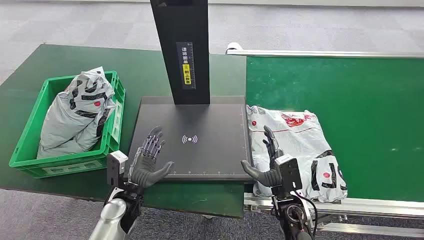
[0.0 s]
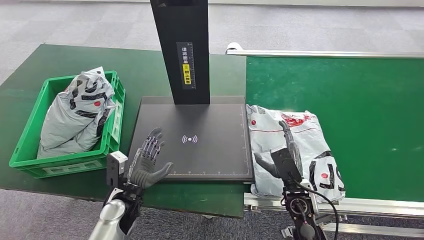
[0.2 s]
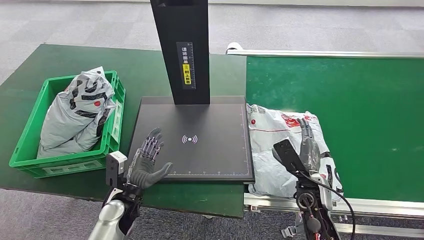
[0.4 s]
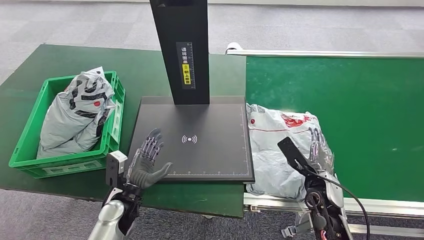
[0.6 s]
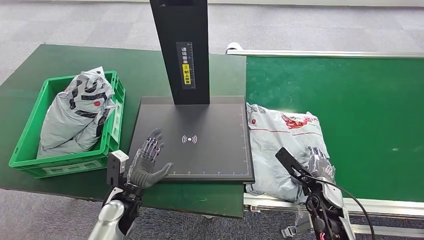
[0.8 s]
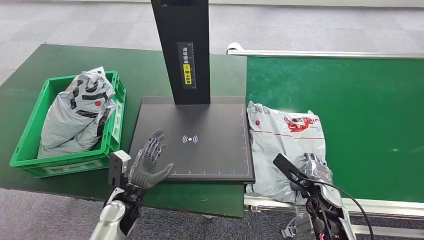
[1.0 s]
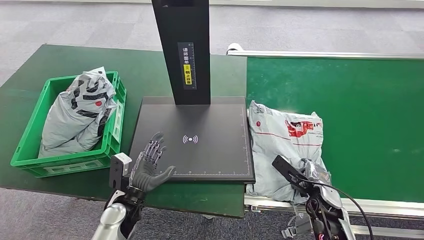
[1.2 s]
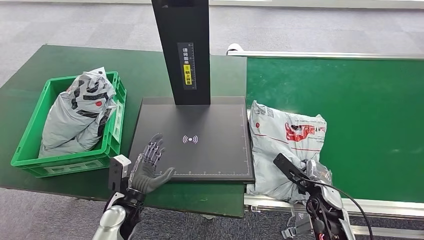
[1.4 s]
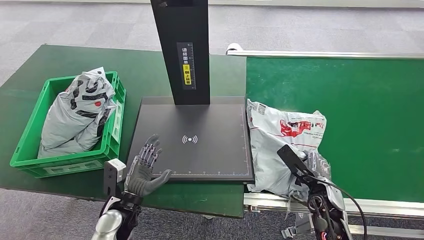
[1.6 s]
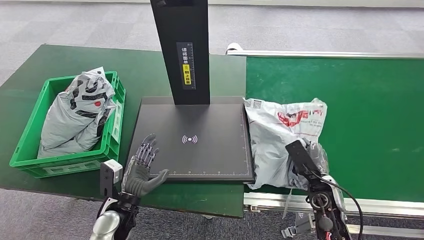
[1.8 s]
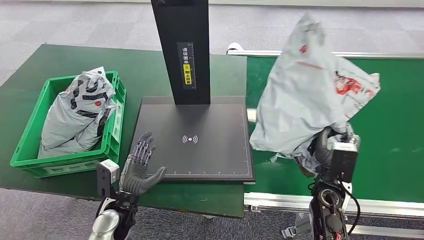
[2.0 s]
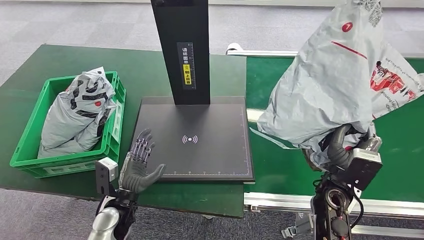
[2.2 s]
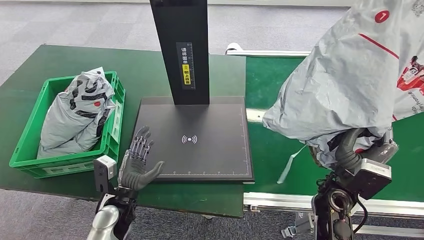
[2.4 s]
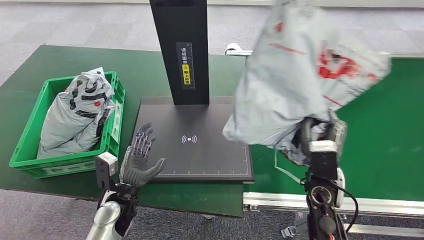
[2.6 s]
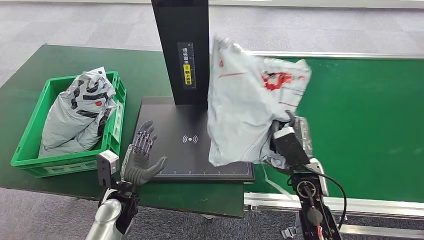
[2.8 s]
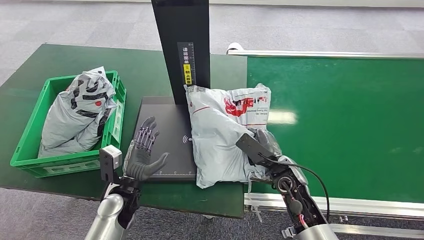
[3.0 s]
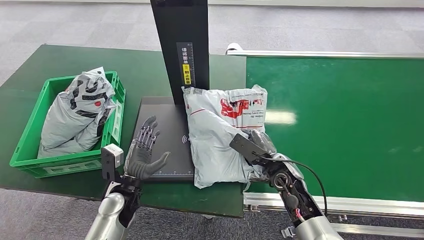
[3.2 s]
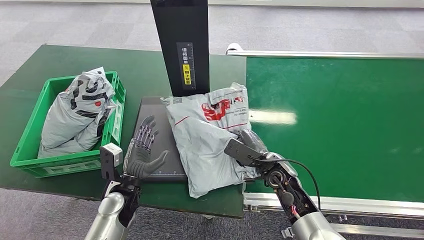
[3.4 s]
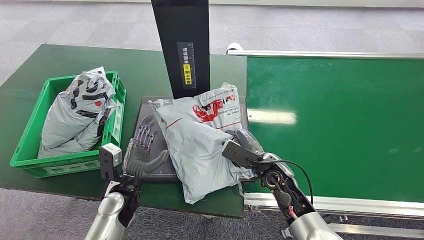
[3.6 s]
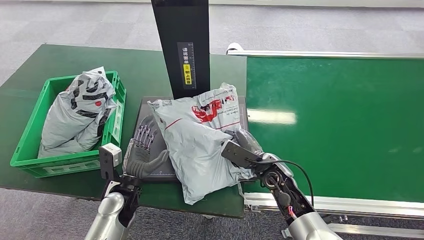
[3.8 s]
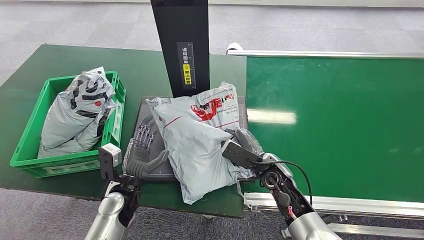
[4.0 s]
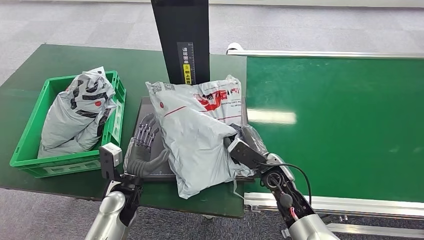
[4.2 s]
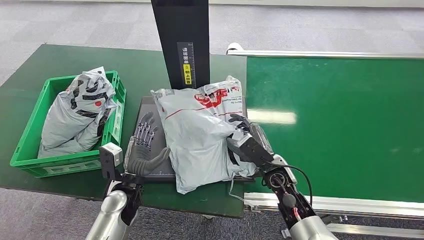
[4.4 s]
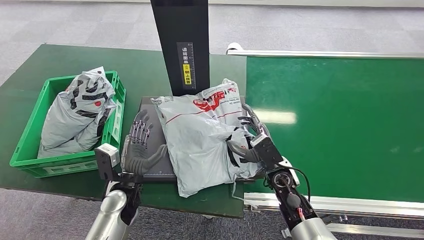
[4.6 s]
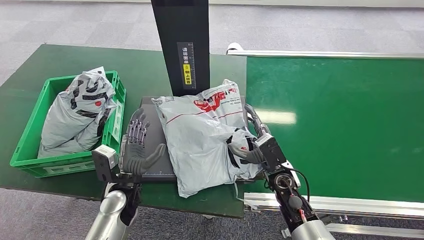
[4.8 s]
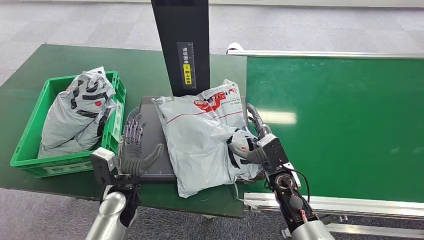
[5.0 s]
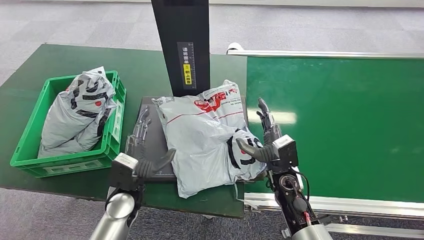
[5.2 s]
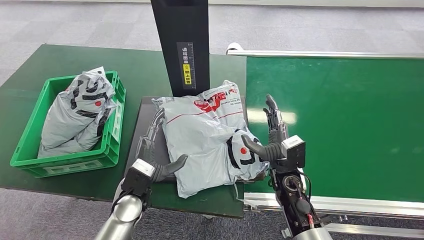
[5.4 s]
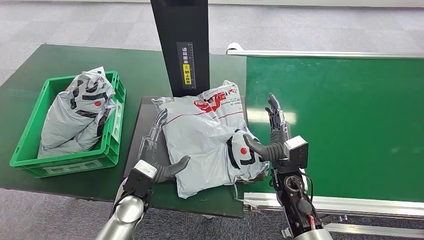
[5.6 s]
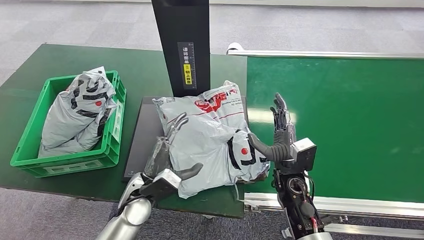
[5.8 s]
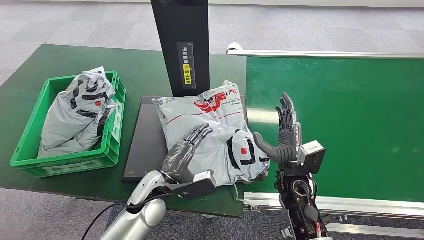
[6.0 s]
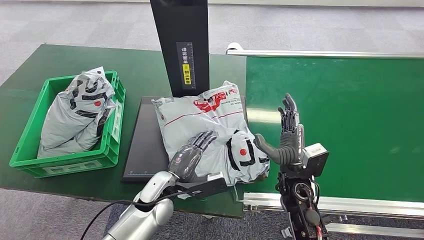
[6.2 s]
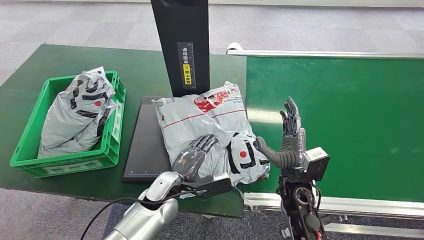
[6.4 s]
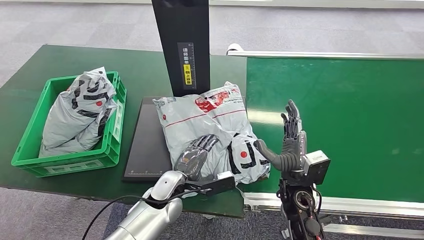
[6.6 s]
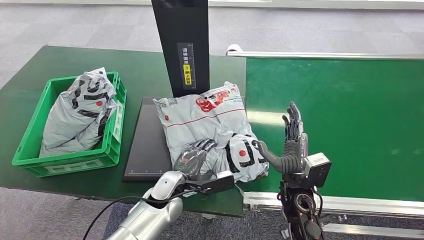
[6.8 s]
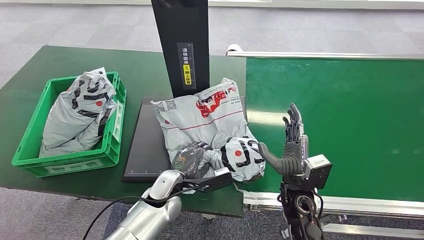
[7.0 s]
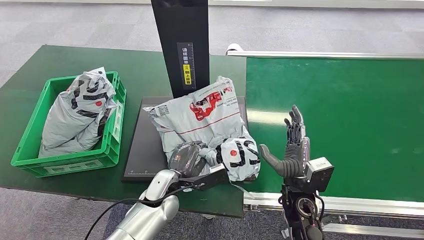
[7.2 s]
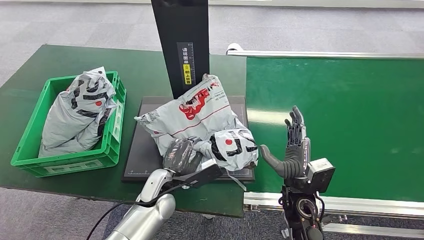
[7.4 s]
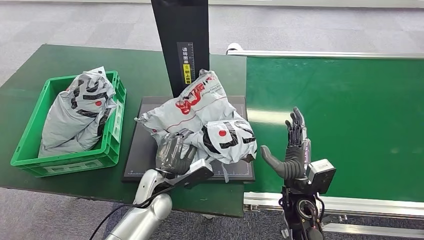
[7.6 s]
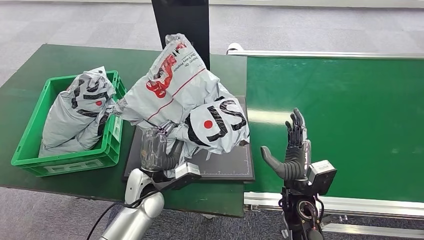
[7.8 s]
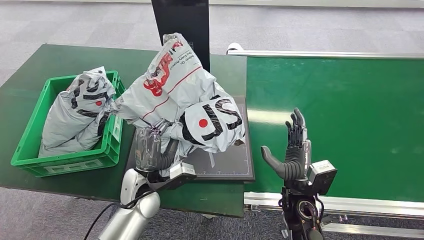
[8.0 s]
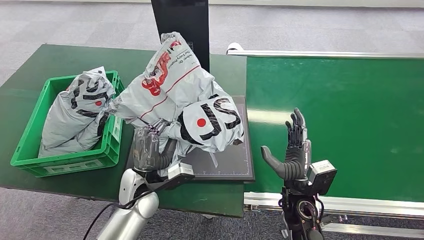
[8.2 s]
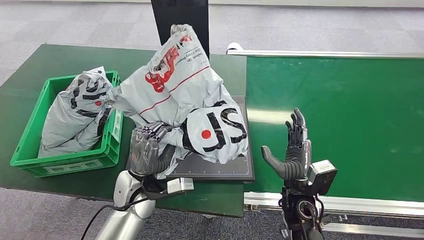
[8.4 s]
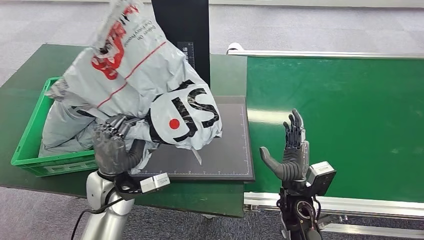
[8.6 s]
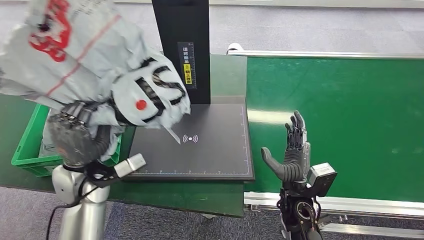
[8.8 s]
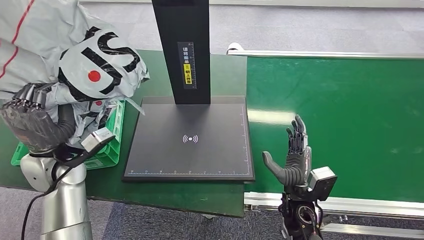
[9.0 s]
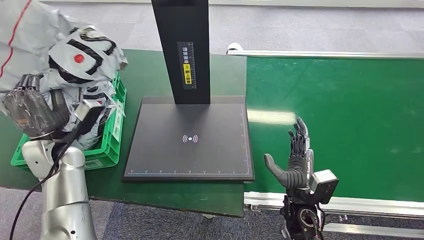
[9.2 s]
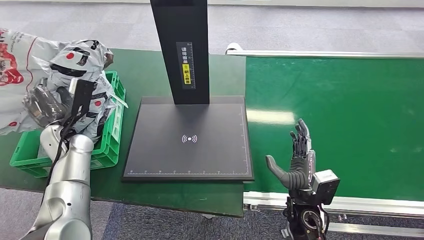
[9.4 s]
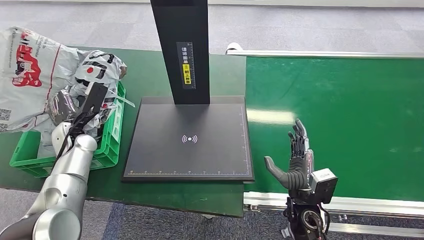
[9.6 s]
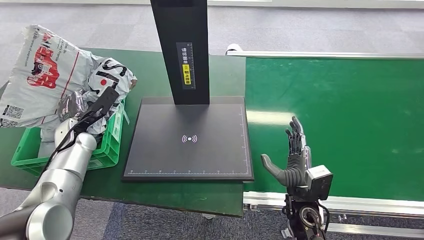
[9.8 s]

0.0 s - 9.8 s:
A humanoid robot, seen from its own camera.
Task of the whole recording: Weigh the package on the weighing device and place it in the left basket.
Step, 0.0 s - 2.6 s: Pick up the package from the conveyor belt.
Step, 2.8 s - 4.6 s: Place the package onto the inbound machine.
Step, 5.0 s - 8.2 s: Pick up the package from the inbound machine.
1.4 s - 2.8 s: The right hand goes some 10 cm upward and to the left.
5.6 s - 7.0 s: The left hand travels to the right by approximately 5 cm.

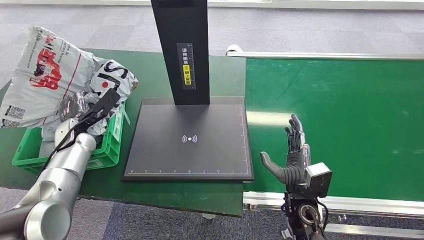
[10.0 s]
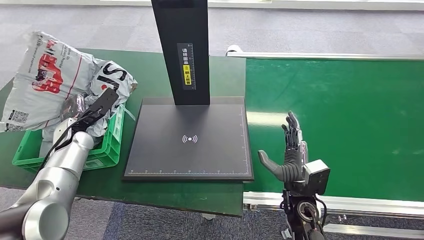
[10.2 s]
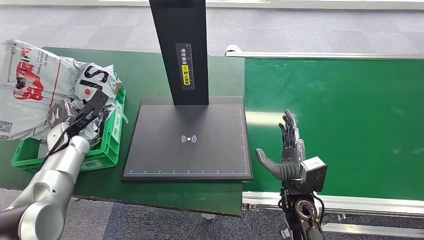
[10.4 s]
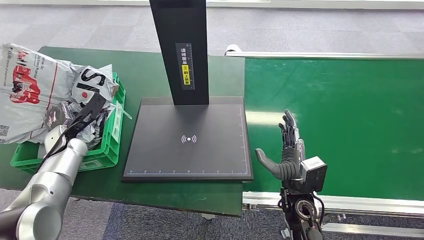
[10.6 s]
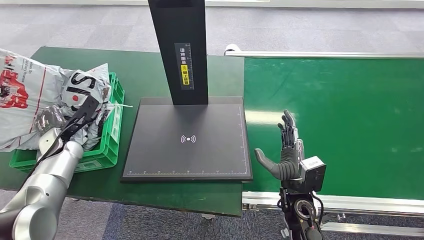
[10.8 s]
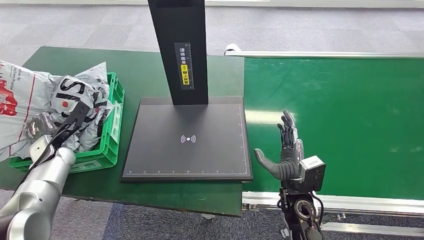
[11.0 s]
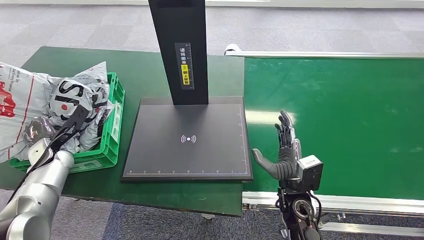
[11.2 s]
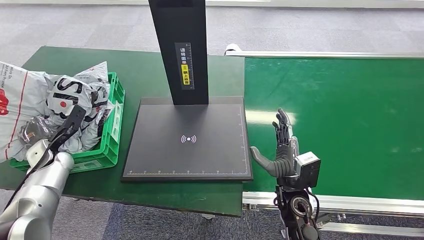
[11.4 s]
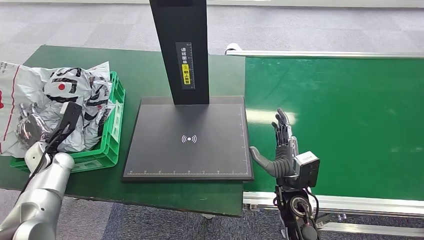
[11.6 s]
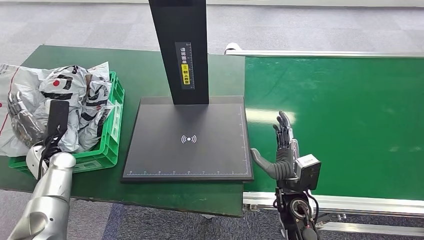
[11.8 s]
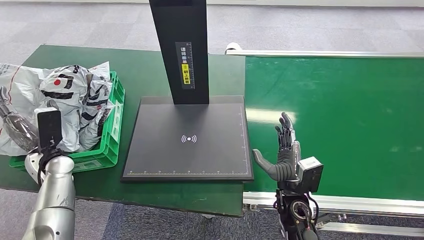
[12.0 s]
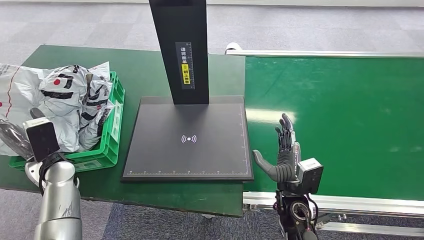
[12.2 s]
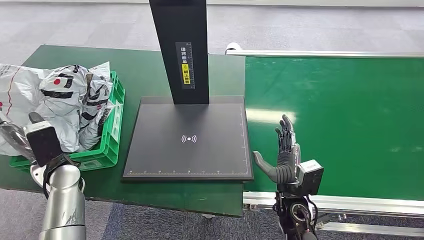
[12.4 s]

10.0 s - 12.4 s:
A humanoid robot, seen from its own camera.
Task of the whole recording: Weigh the package on the weighing device and place it in the left basket.
Step, 10.0 s - 12.2 s: Place the package into the parcel locker.
11.2 s - 12.4 s: The left hand travels to the right and backward by approximately 10 cm.
